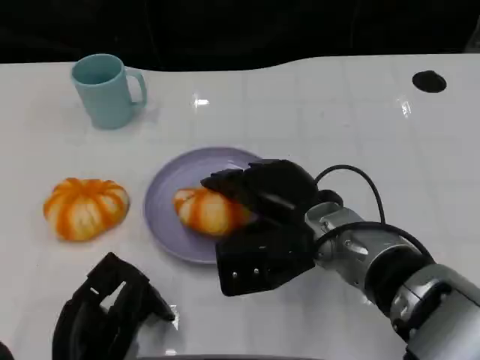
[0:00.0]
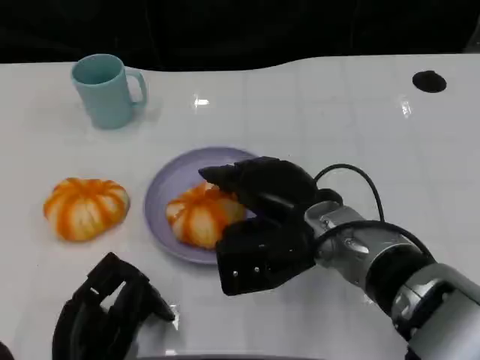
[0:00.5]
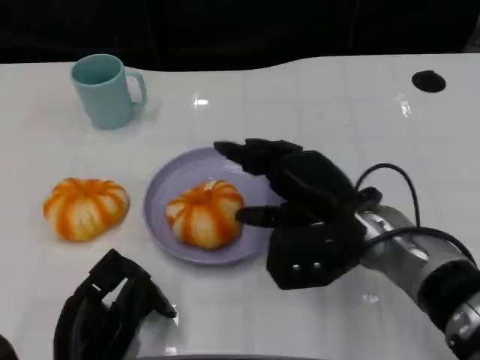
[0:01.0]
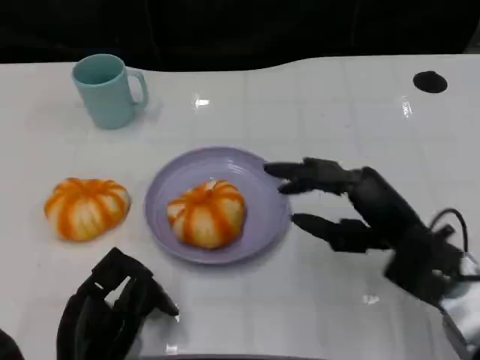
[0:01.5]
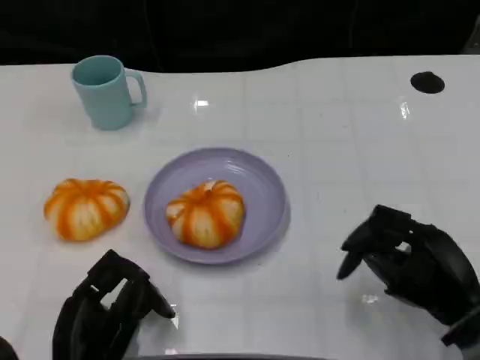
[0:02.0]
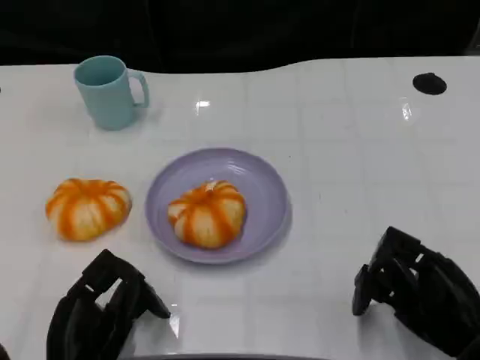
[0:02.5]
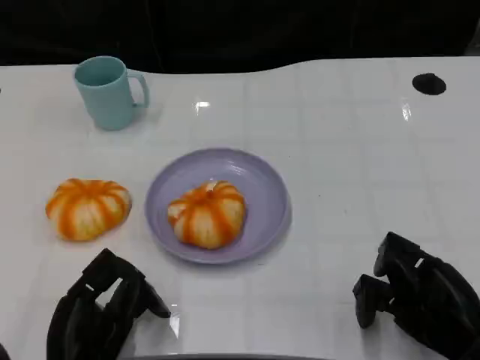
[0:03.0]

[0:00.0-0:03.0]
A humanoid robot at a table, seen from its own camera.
Task of the whole recording: Grasp the bread from the table and place it into the plate.
0:00.0 to 0:01.5: The right hand travels to the right by roughly 10 cm.
0:01.5 to 0:03.0: The right hand is displaced backward, downward and to the right by roughly 10 cm.

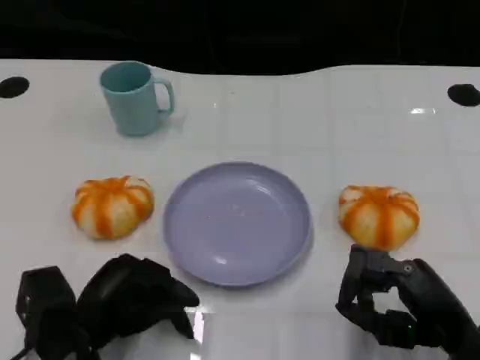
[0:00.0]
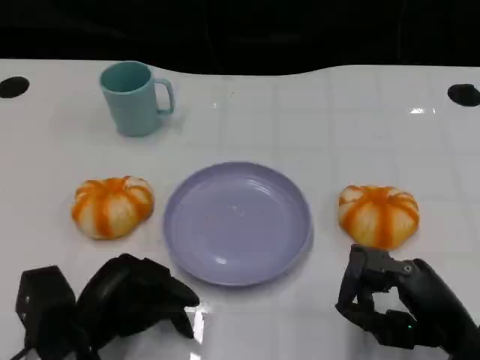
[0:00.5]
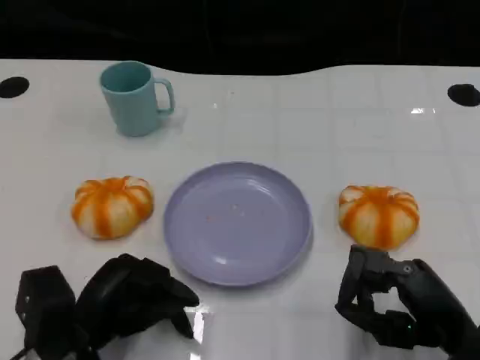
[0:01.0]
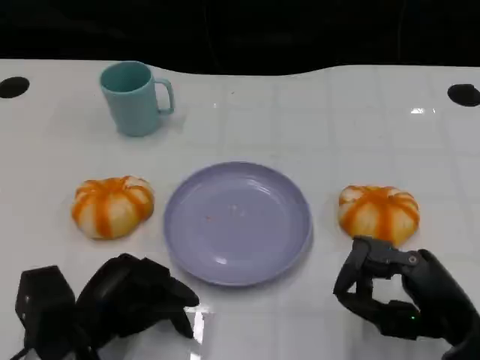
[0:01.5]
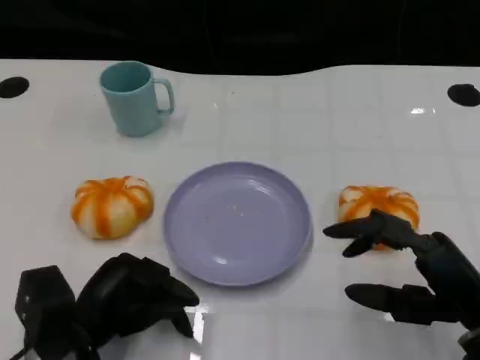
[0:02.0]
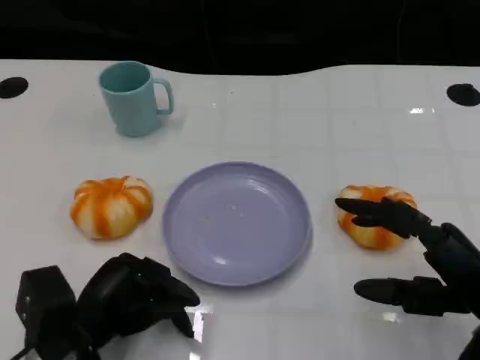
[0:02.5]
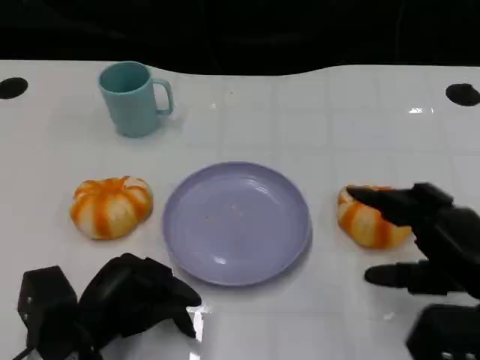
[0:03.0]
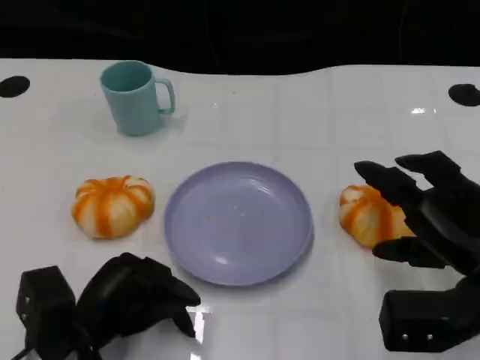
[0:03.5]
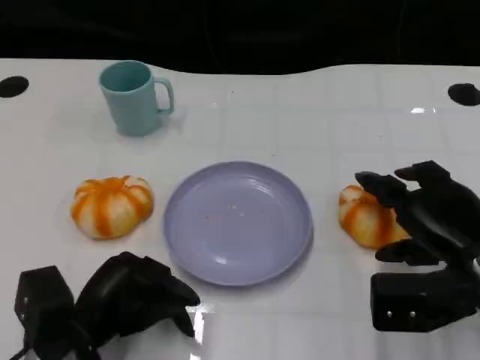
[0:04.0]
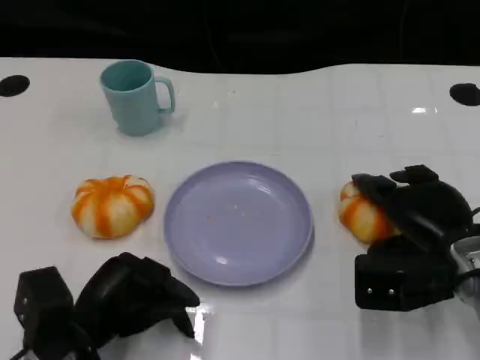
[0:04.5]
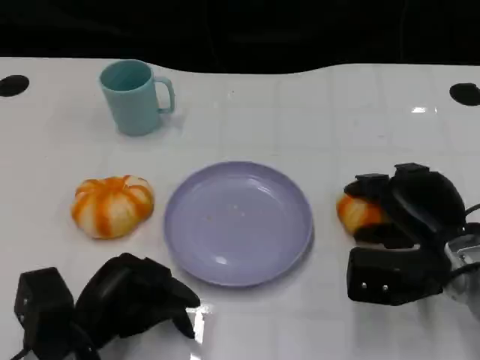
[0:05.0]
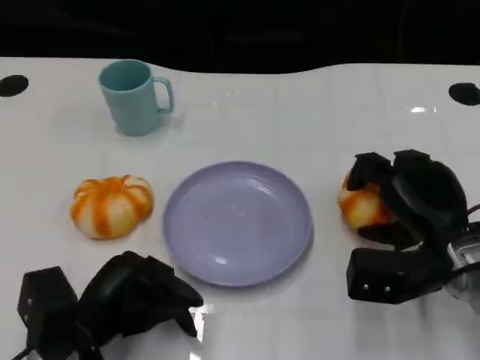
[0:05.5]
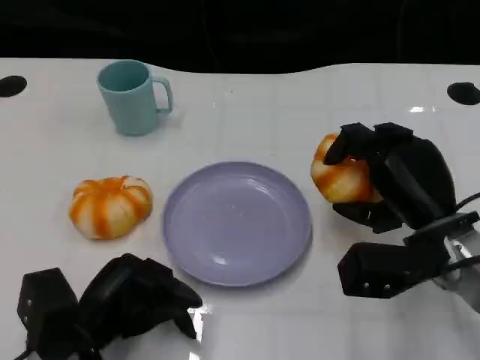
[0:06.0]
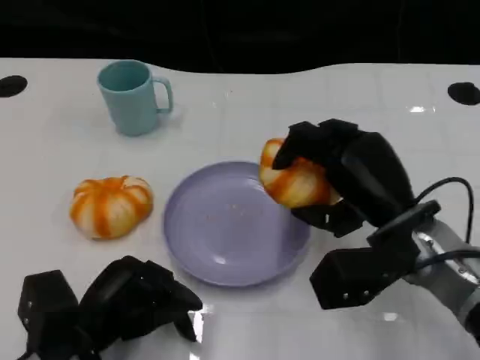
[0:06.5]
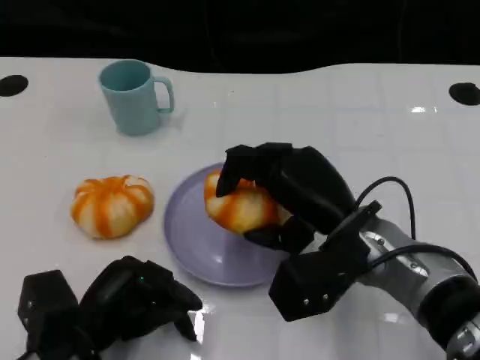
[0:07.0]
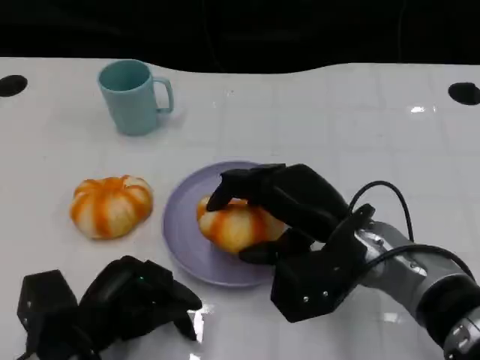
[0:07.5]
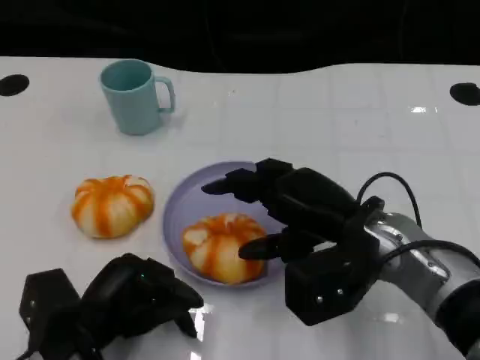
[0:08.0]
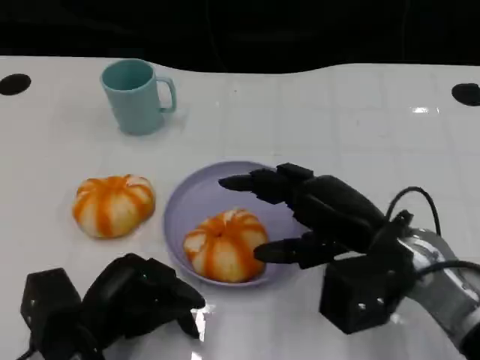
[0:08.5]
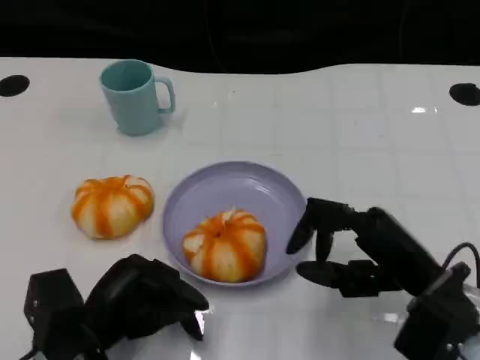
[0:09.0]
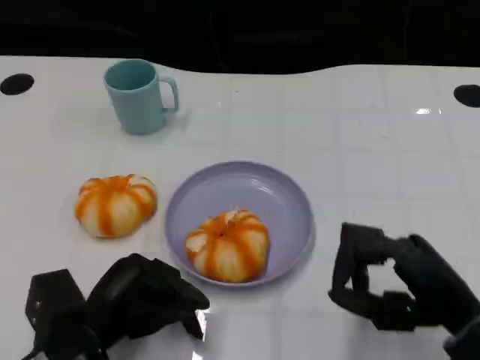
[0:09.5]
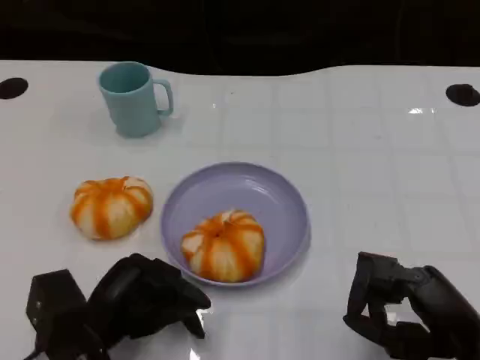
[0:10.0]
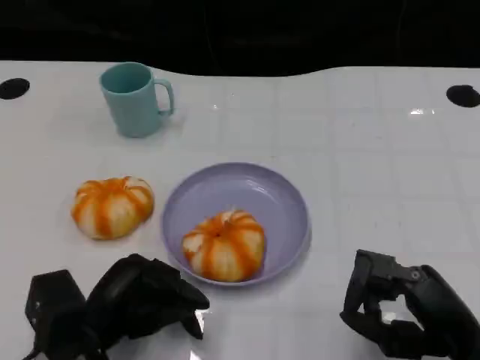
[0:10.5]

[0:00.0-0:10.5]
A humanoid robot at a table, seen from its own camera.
Task of the whole recording: Grasp the bread from the table and place it into the plate.
0:00.0 to 0:02.0: The hands move only a little.
0:02.0 to 0:04.0: The right hand is displaced forward by some 5 cm.
0:04.0 to 0:06.5: The right hand goes about 10 cm to the left.
0:08.5 to 0:10.5: The right hand shifts some 10 cm backward, to the right and downward.

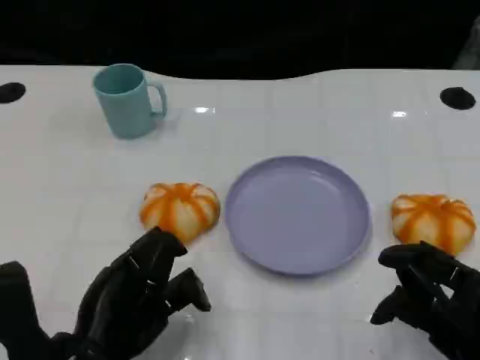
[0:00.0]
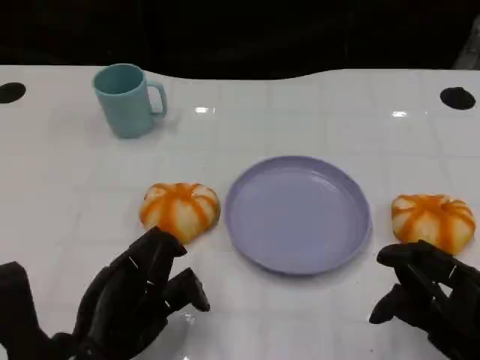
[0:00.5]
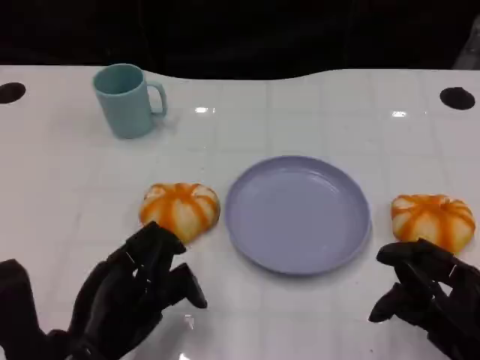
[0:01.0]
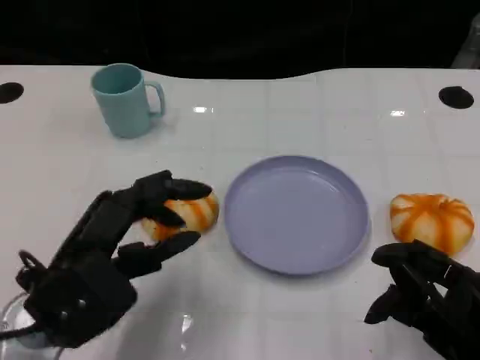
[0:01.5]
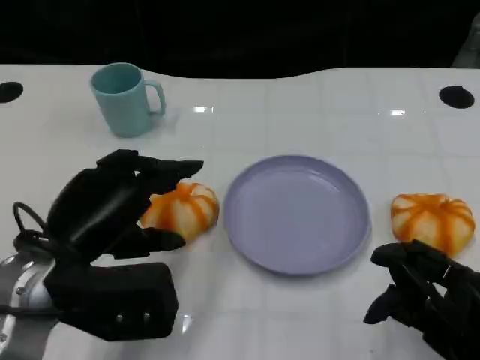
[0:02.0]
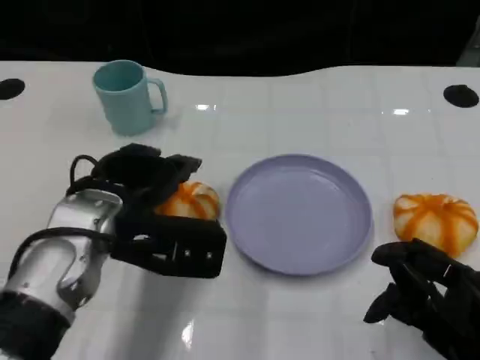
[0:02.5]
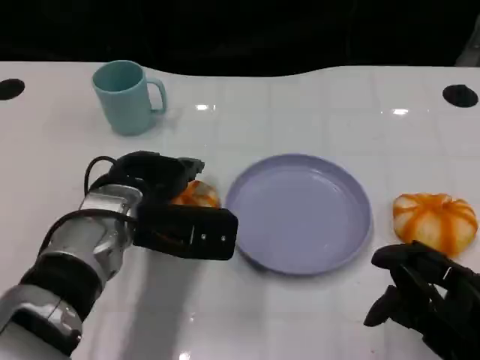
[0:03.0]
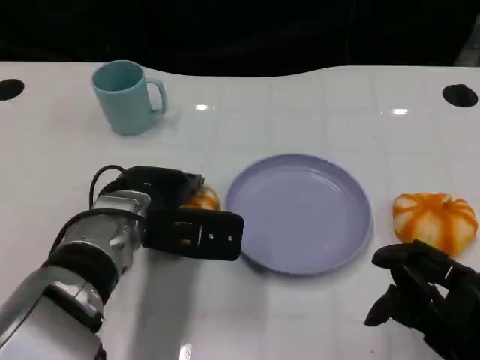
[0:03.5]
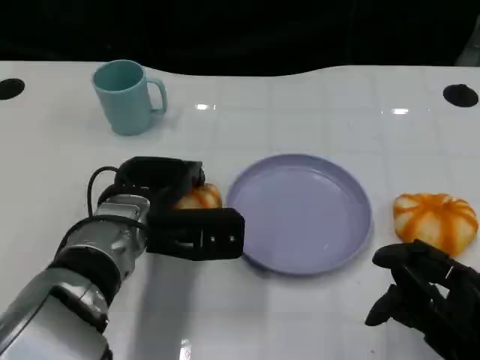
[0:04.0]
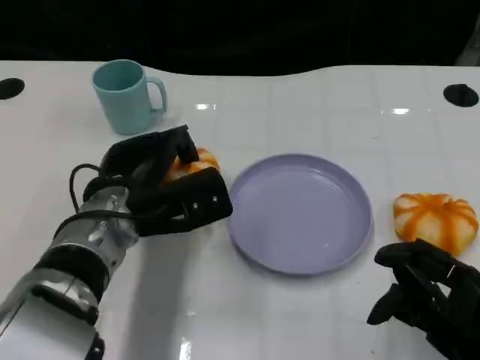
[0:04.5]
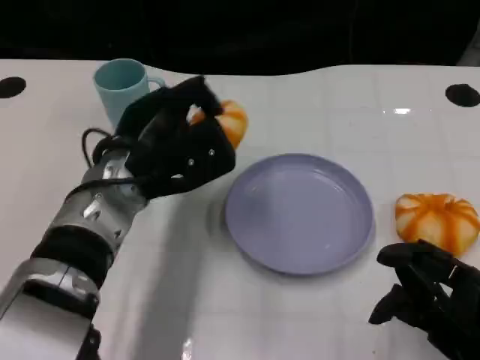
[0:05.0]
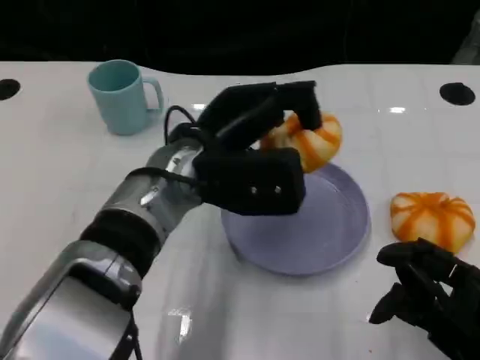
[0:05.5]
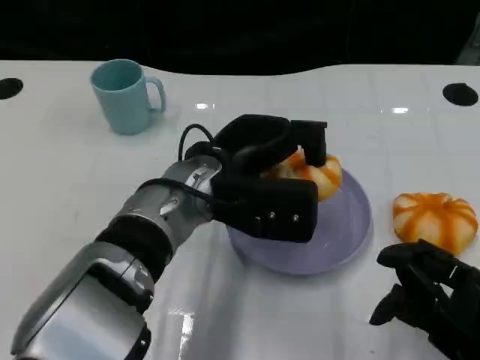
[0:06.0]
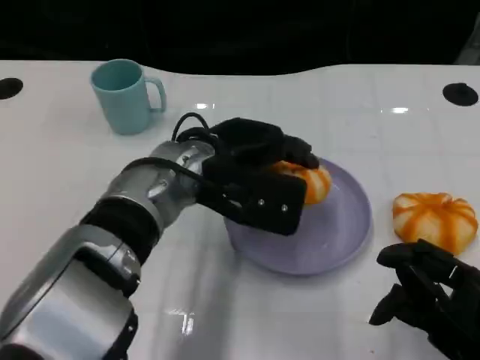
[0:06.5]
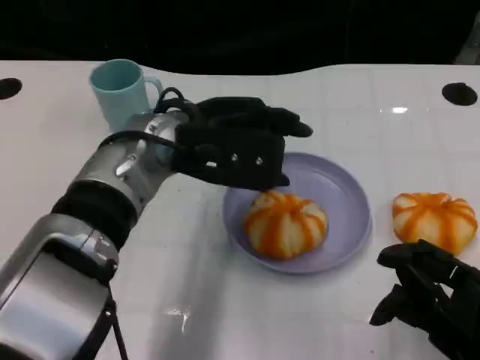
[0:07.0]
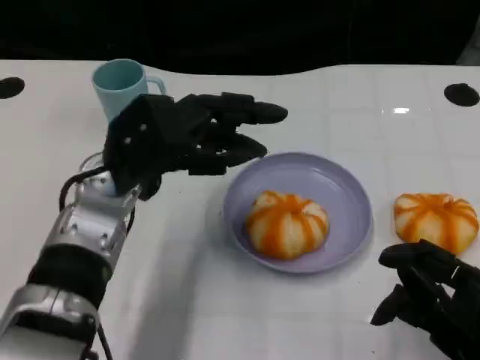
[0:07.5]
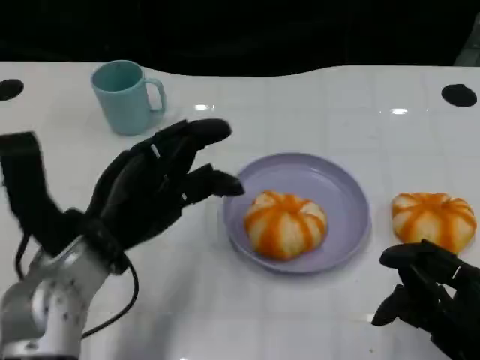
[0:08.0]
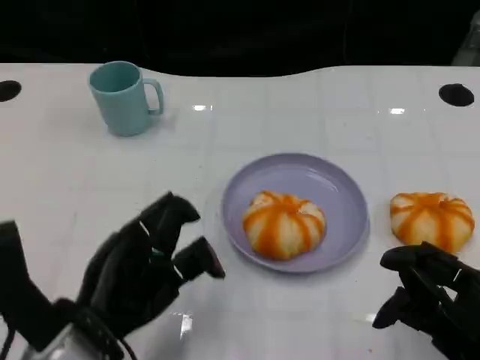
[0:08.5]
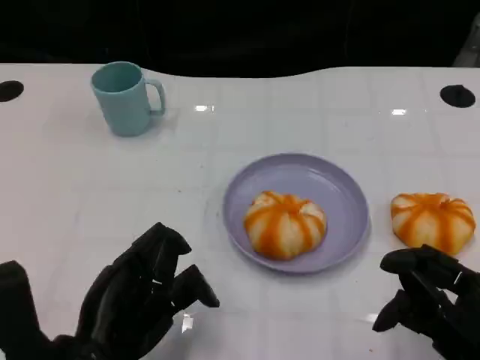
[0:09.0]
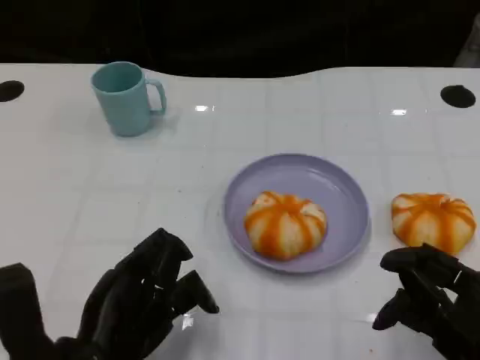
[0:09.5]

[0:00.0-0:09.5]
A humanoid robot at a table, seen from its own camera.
Task of the whole recording: Grasp the bread from the table and place it into the plate.
0:00.0 to 0:02.0: The left hand moves upward and forward, some 10 cm.
0:02.0 to 0:04.0: The left hand shifts approximately 10 cm forward, to the right and downward.
0:04.0 to 0:05.5: The left hand goes some 10 cm upward and to the right.
0:05.5 to 0:07.5: The left hand heads to the left, covering some 10 cm.
0:07.5 to 0:09.5: The left hand moves backward and downward, about 15 cm.

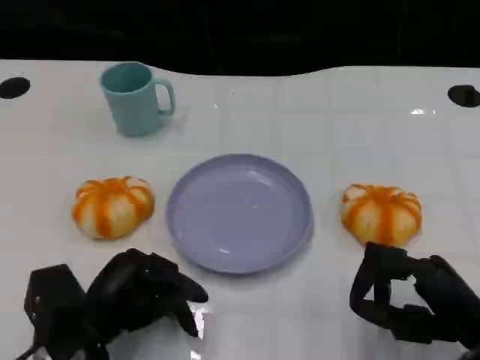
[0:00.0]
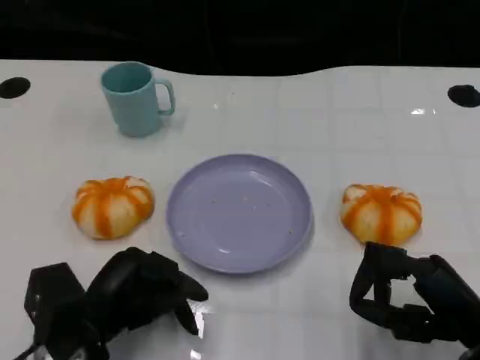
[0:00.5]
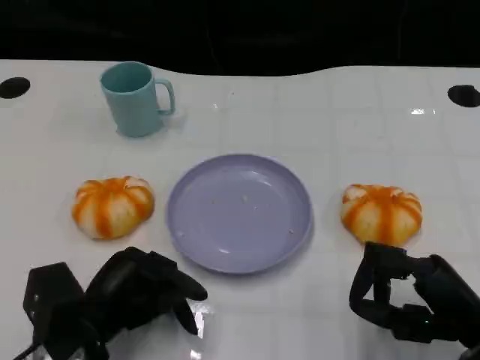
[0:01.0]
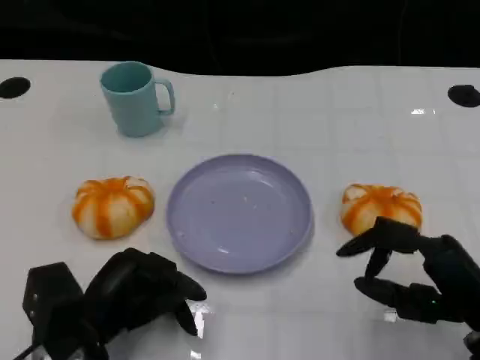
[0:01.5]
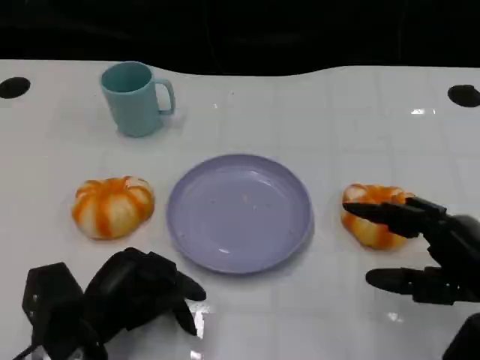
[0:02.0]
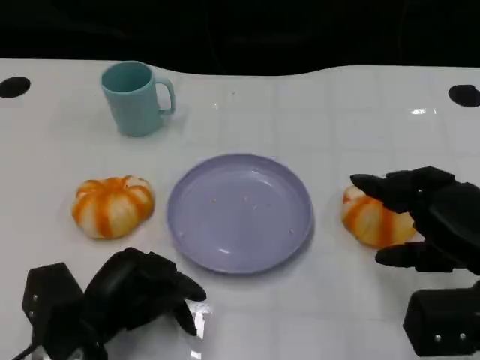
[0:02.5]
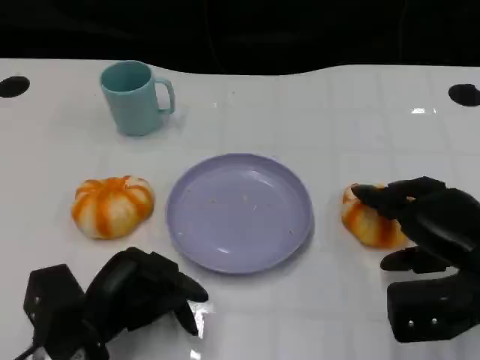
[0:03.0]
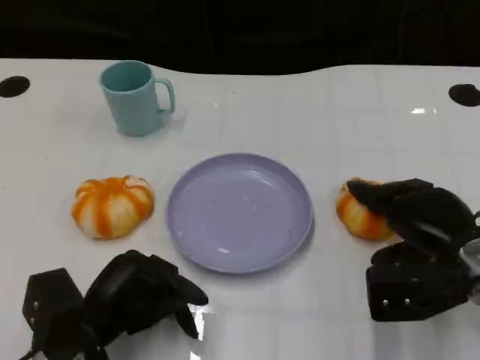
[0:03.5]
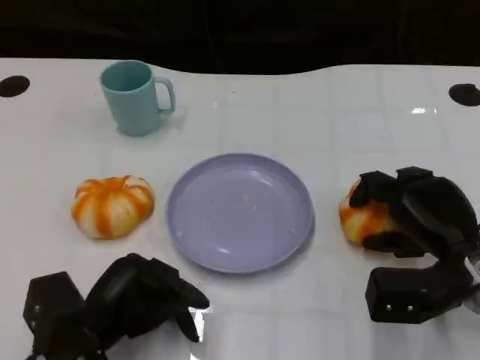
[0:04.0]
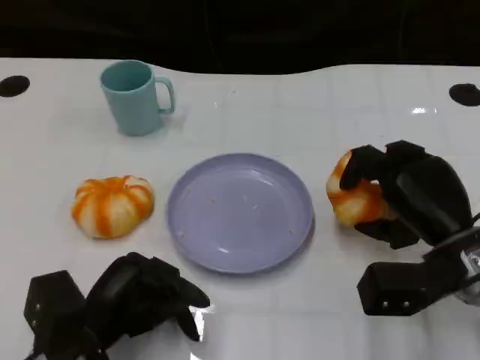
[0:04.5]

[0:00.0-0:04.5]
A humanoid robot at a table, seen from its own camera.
Task of the whole recording: Grasp the bread from the table and place it into the plate.
0:00.0 to 0:02.0: The right hand changes place by some 5 cm.
0:02.0 to 0:04.5: The right hand heads forward, covering some 5 cm.
